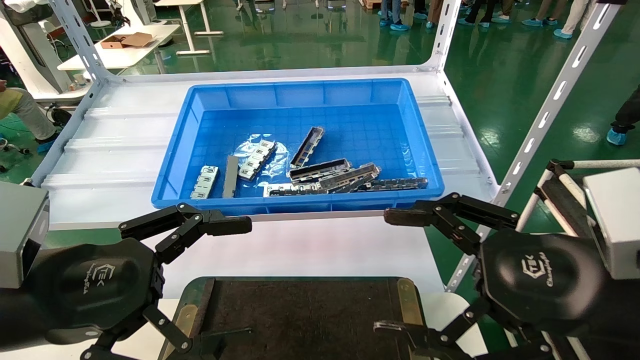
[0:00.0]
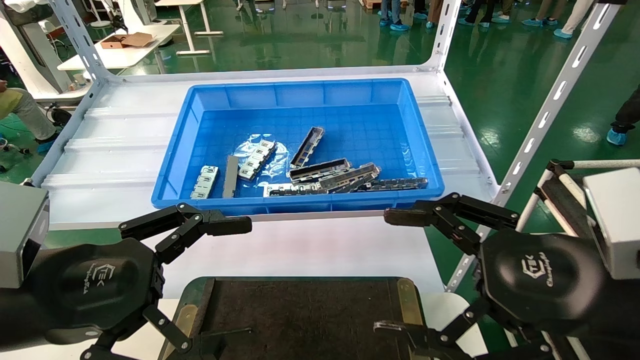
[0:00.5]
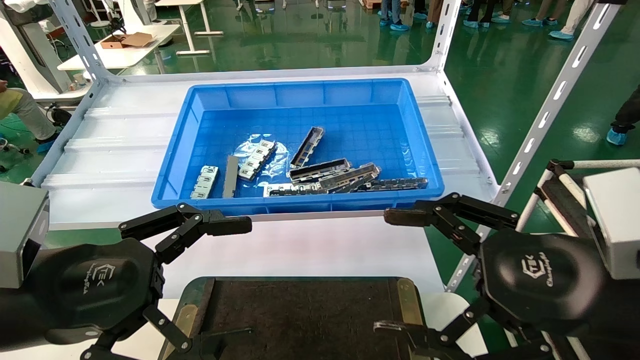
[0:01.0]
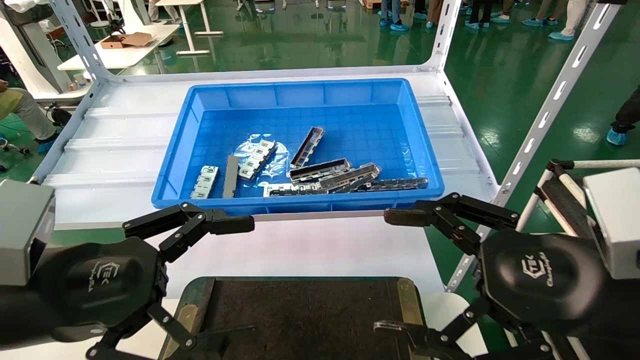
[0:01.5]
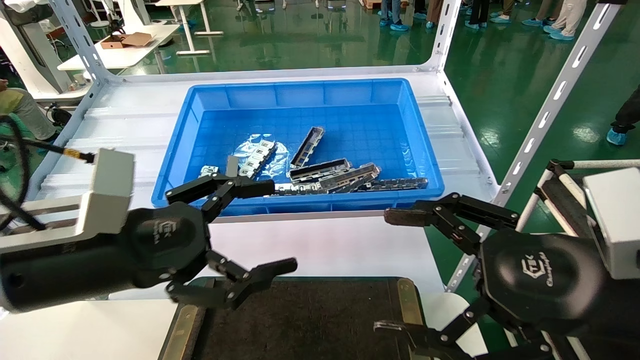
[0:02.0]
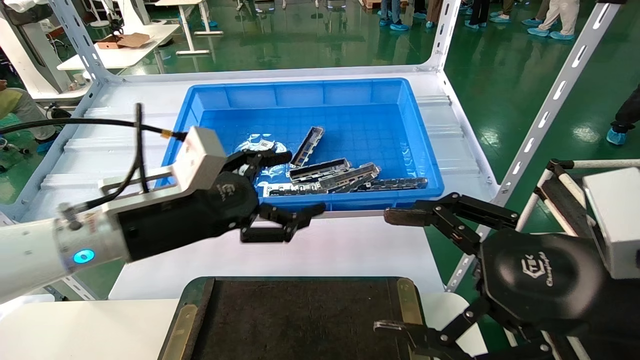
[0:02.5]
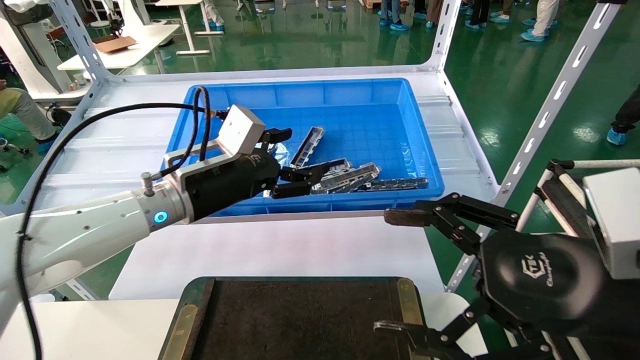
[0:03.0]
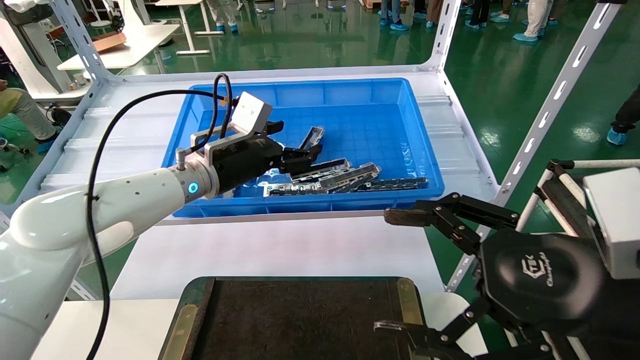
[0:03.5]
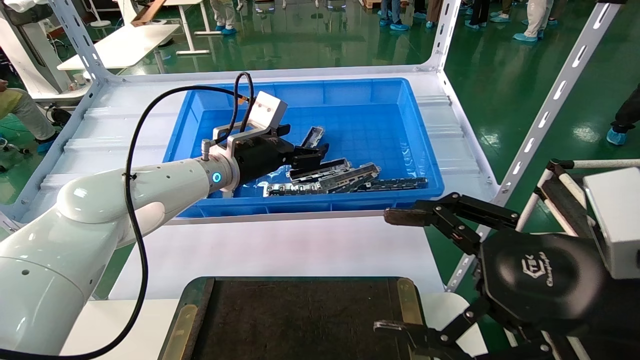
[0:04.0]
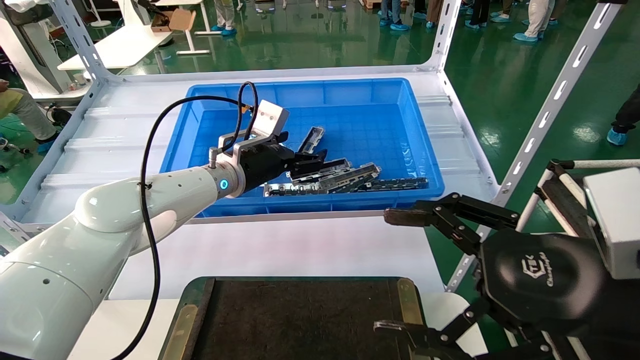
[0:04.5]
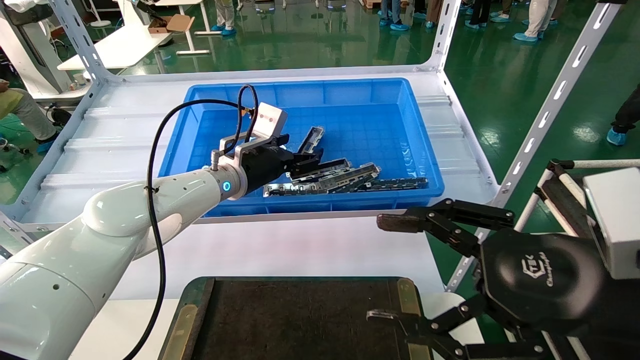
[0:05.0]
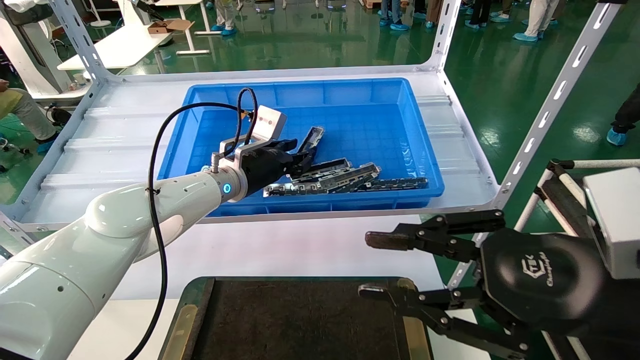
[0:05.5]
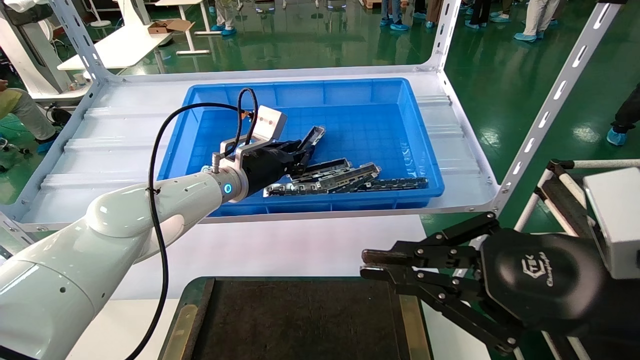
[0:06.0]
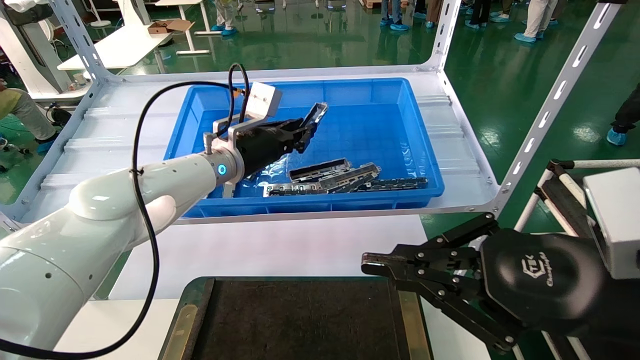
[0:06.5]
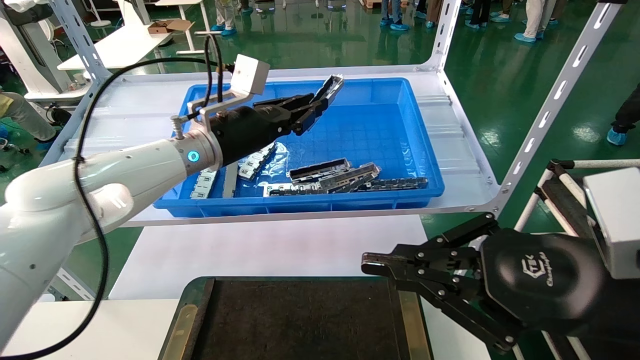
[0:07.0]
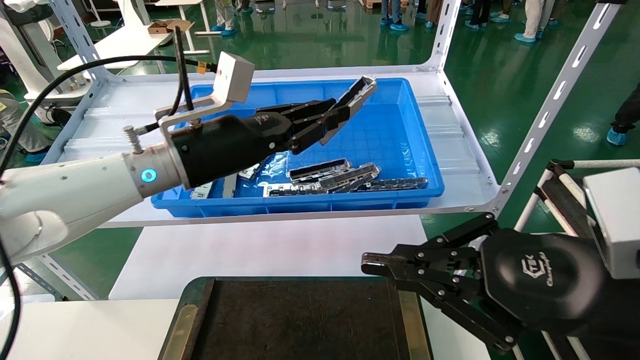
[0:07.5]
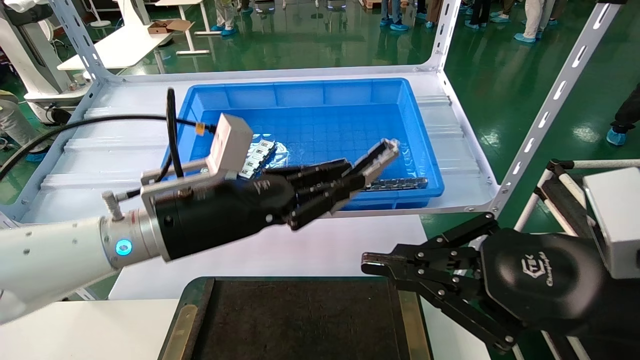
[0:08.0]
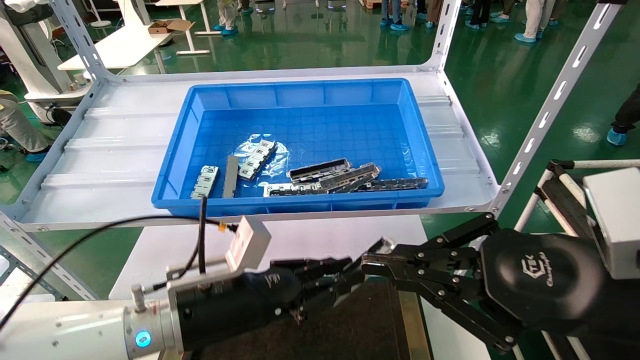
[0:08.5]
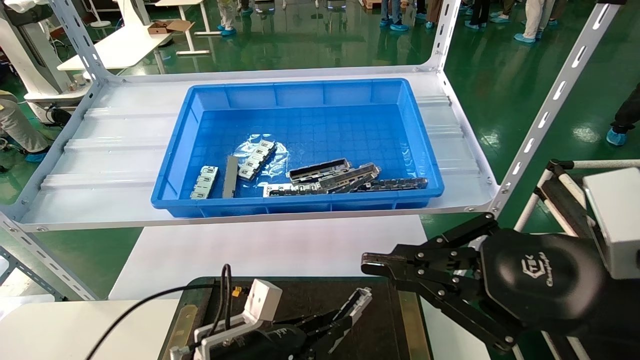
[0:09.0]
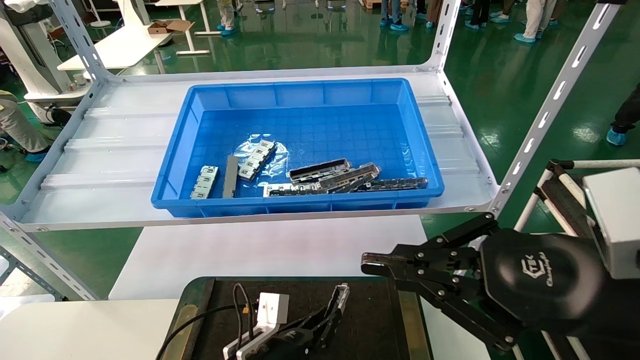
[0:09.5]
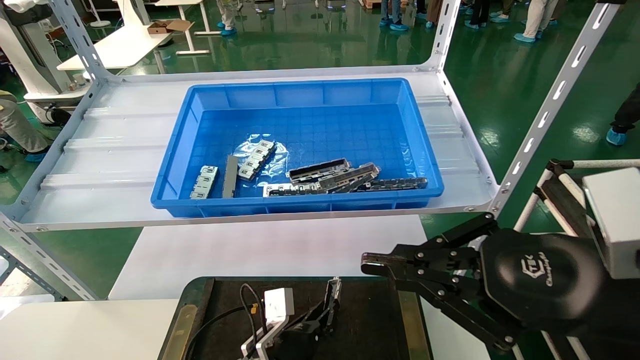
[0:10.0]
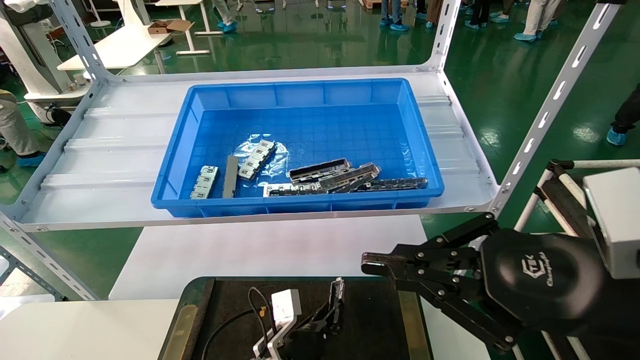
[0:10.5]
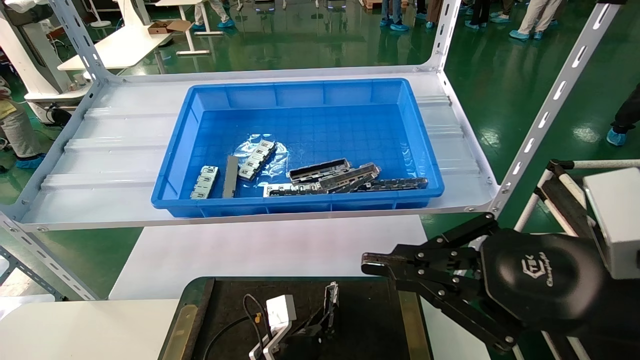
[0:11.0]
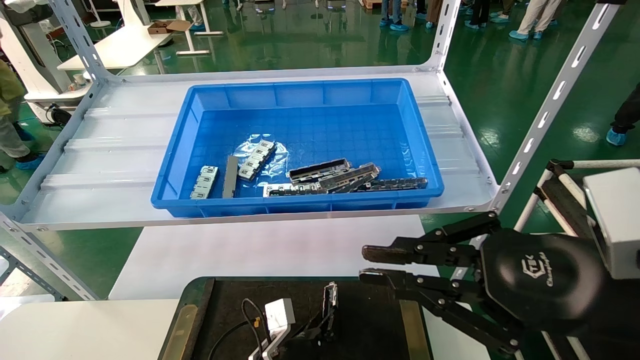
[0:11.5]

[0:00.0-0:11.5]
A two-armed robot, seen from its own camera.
Task of the whole recording: Grasp the part with one hand and place it on the black container.
Step, 0:02.0 to 0:05.5: Pick up the front USB bracket from the feeding area.
Step, 0:06.0 to 0:11.5: Place the front USB bracket into the box.
0:00.0 to 0:02.0: The left gripper moves roughly 5 cm.
0:02.0 to 0:04.0: The left gripper travels forward by about 25 cm.
0:04.0 to 0:06.0: The left gripper closes up, while the right gripper closes.
0:06.0 to 0:07.5: The left gripper shifts roughly 15 cm backward and upward.
0:07.5 to 0:09.5: The left gripper travels downward by approximately 35 cm.
0:09.5 to 0:11.5: The left gripper ends up some 5 cm from where it was.

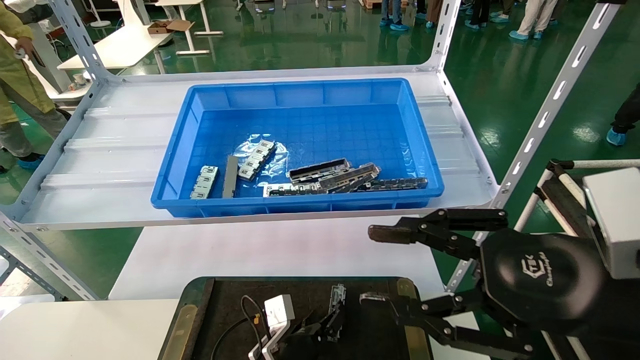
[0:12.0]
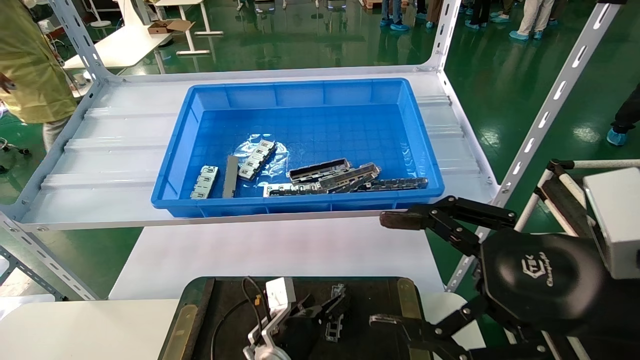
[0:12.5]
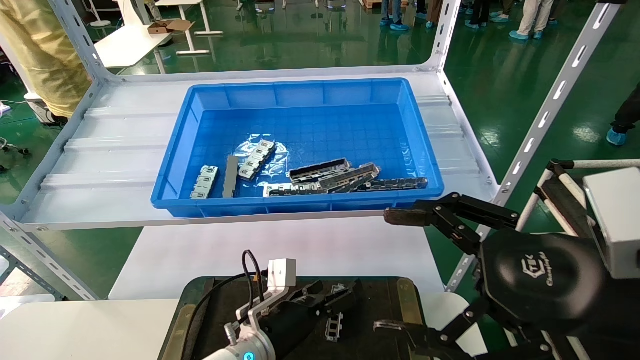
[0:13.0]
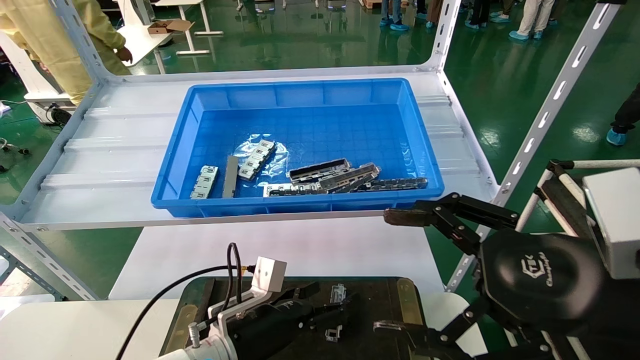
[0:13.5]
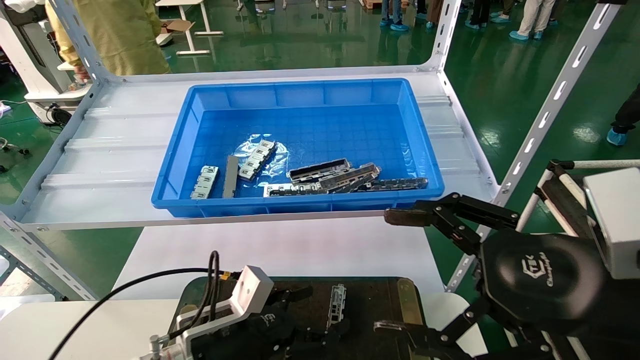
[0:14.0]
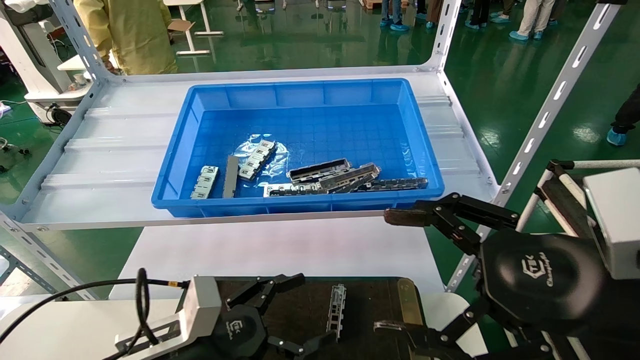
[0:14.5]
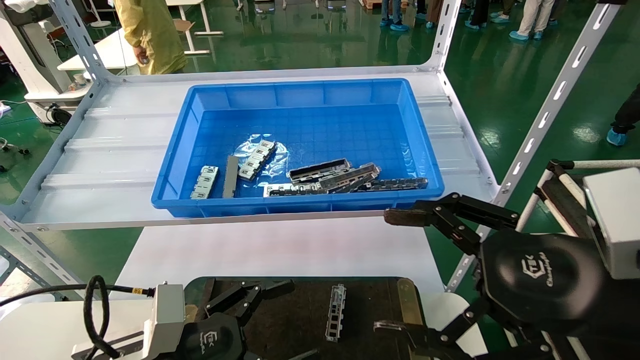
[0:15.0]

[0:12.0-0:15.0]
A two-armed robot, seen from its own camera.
Task of the whole recording: Grasp the part with one hand and place it on the black container.
0:12.0 to 0:13.5: The right gripper opens up; the left gripper travels upward and to the left by some 15 cm, and opens its fingers.
0:13.5 to 0:15.0: The left gripper shifts some 15 cm to the left and backward.

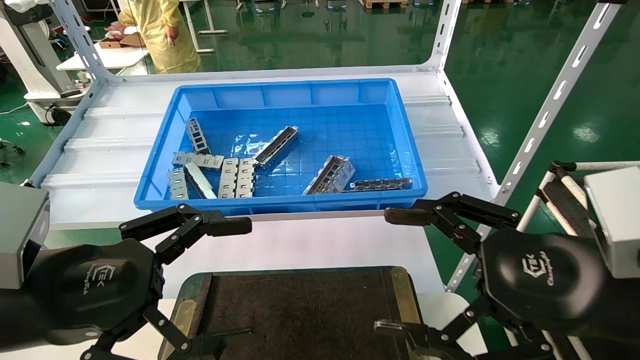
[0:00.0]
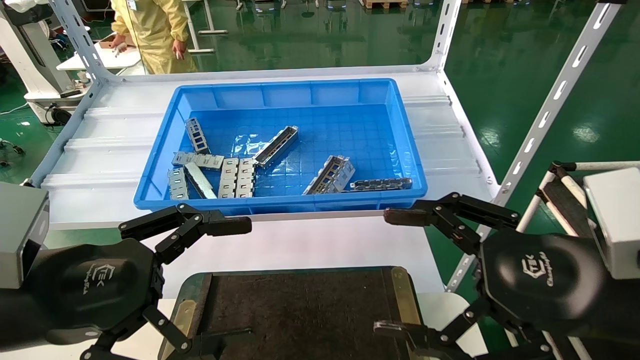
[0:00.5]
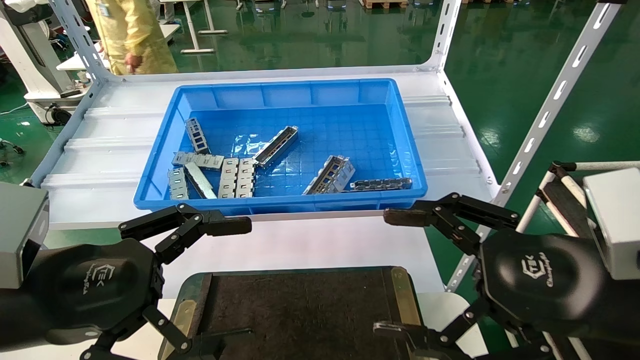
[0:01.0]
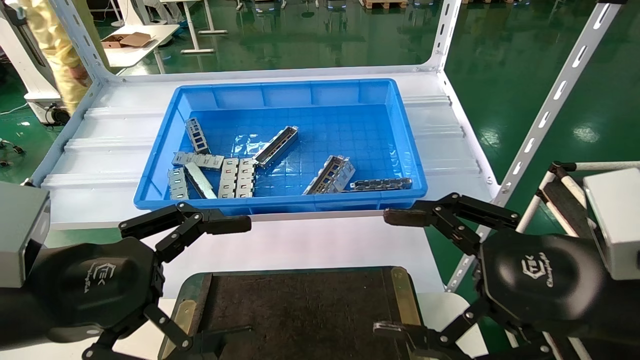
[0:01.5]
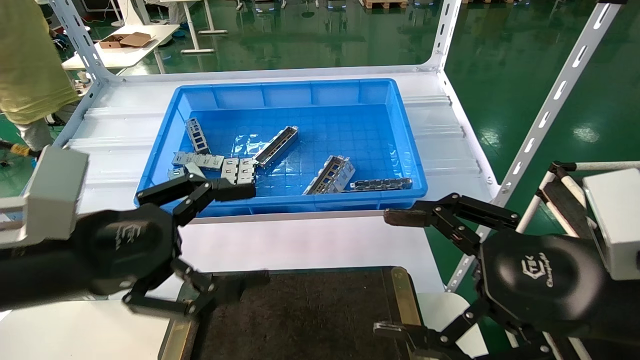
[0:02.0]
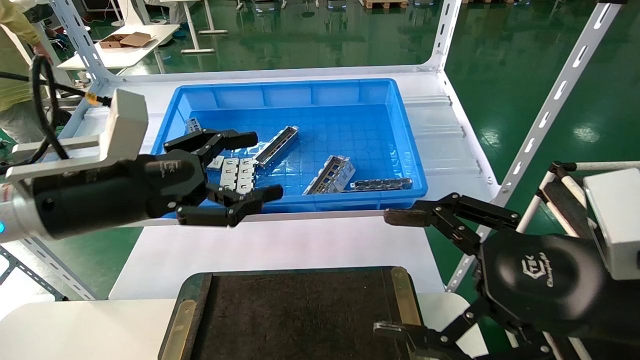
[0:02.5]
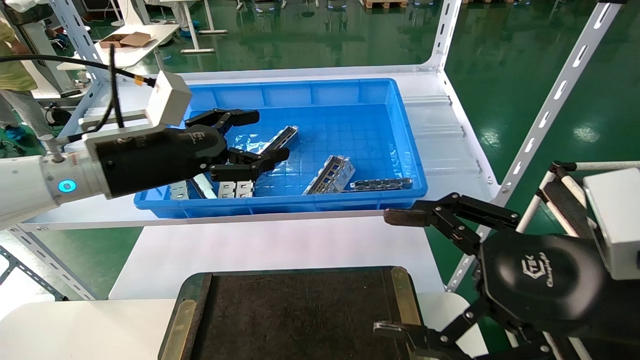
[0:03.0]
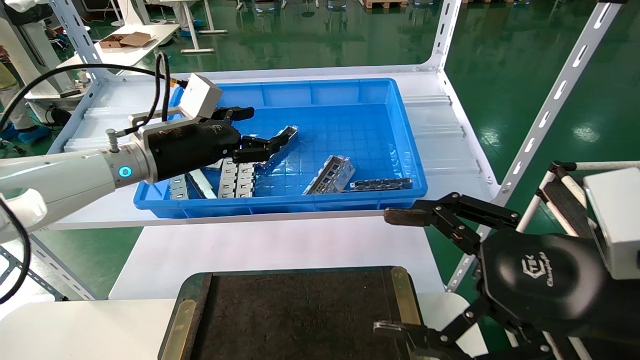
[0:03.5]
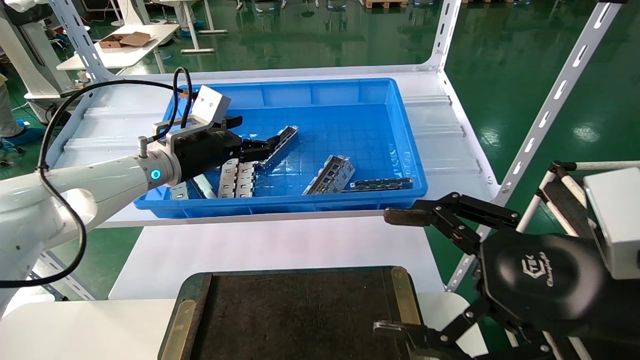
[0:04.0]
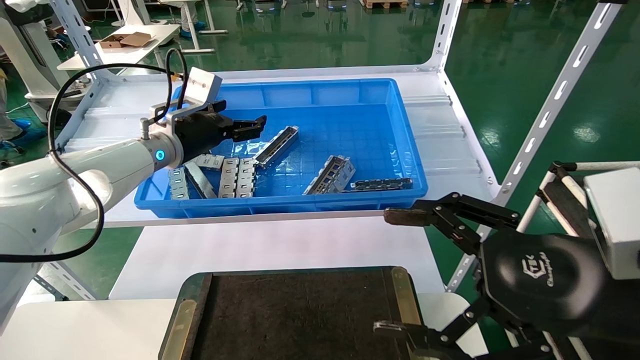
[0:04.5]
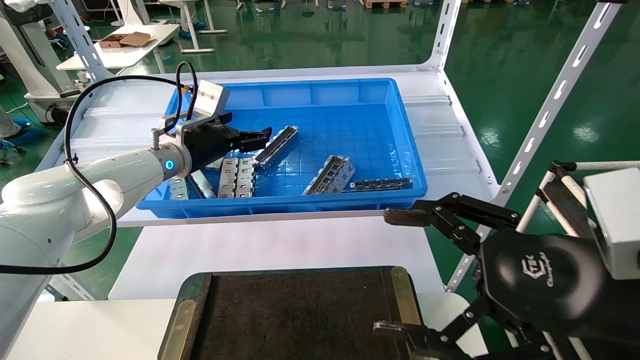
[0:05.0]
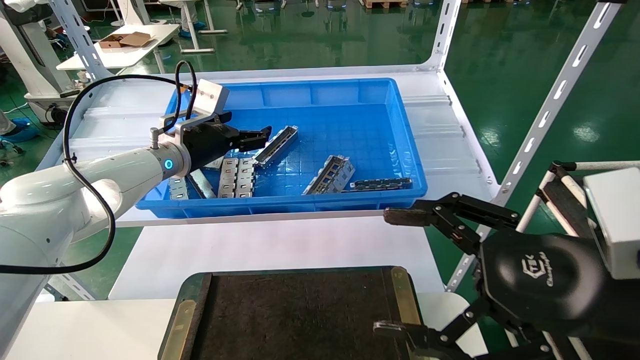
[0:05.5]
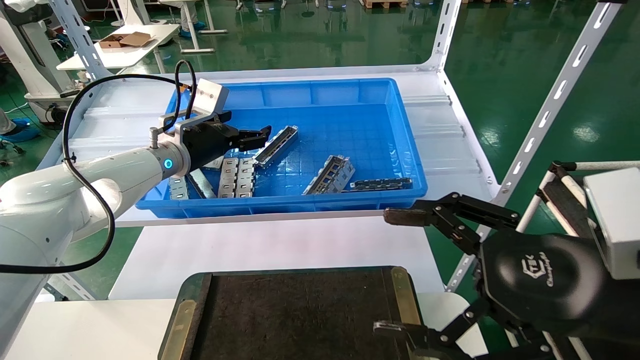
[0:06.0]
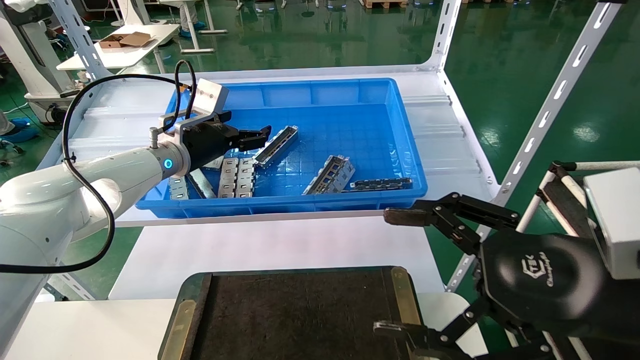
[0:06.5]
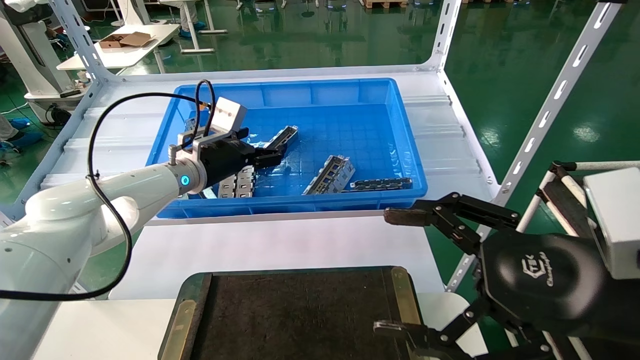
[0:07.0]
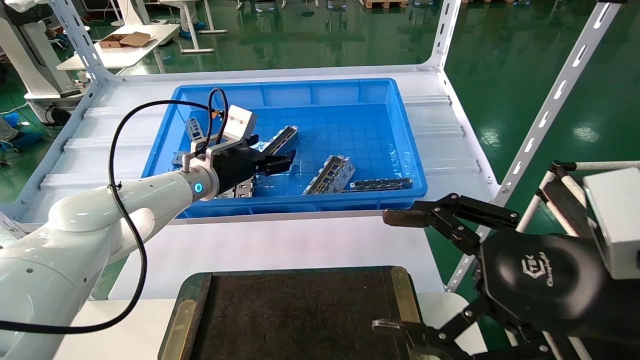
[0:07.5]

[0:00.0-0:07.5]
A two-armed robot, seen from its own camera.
Task of the whole recording: Grasp the part with one hand and place it on the black container.
0:00.0 to 0:02.0: The grippers move only a little.
0:02.0 to 0:04.0: The left gripper heads forward, covering some 25 cm.
0:04.0 to 0:05.5: The grippers make only small movements.
0:05.5 to 0:07.5: The left gripper ends up some 5 cm from where it was.
